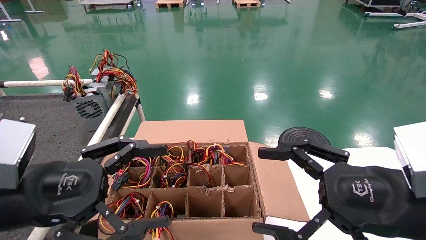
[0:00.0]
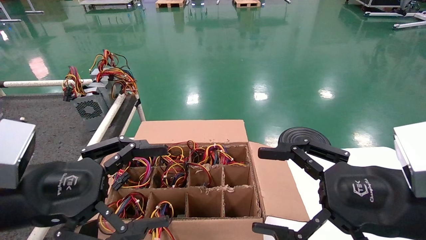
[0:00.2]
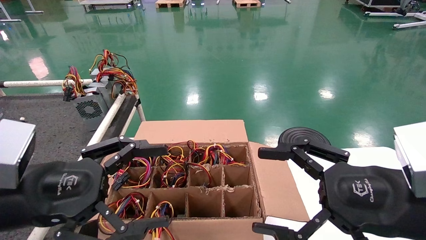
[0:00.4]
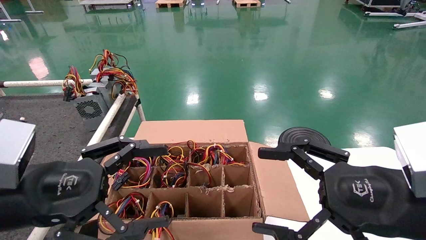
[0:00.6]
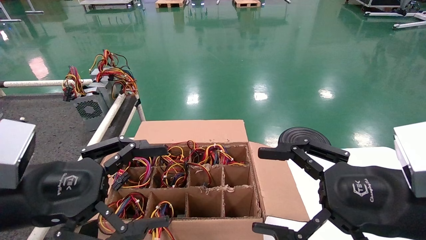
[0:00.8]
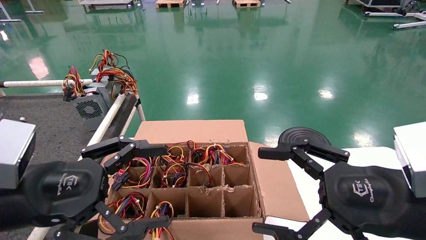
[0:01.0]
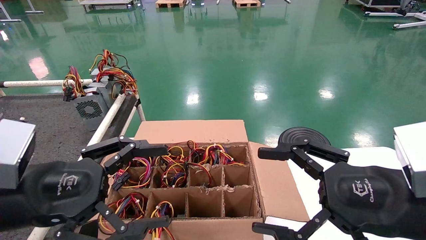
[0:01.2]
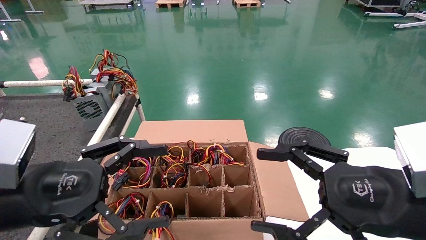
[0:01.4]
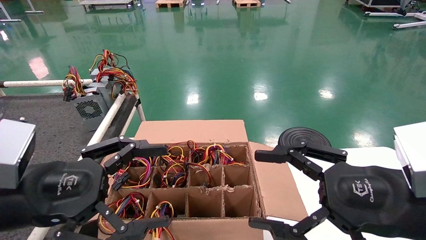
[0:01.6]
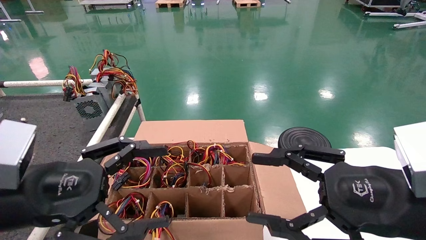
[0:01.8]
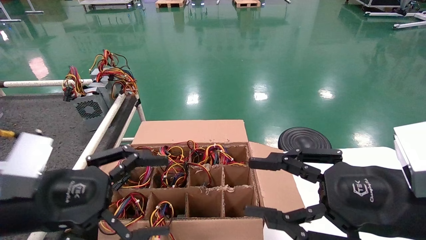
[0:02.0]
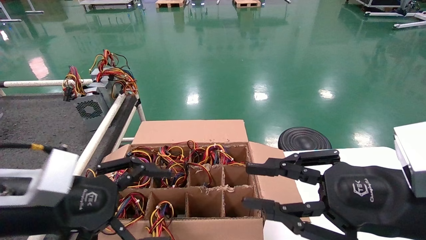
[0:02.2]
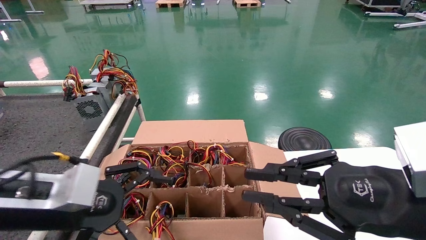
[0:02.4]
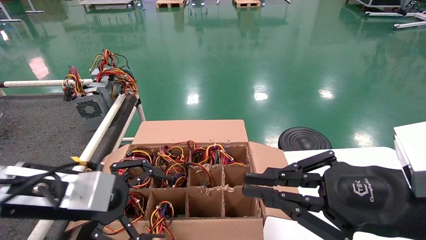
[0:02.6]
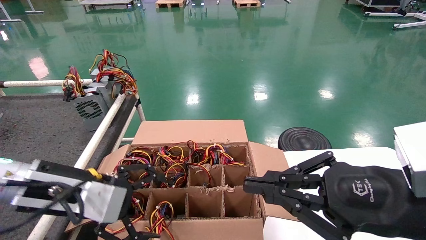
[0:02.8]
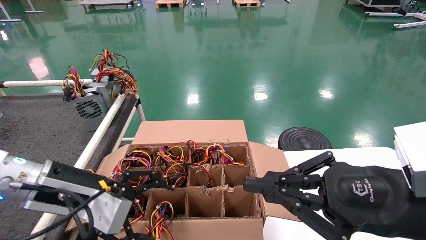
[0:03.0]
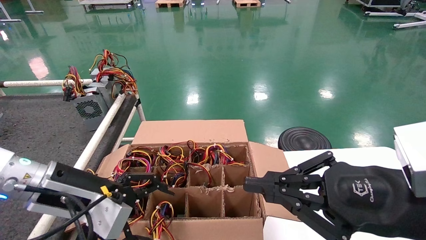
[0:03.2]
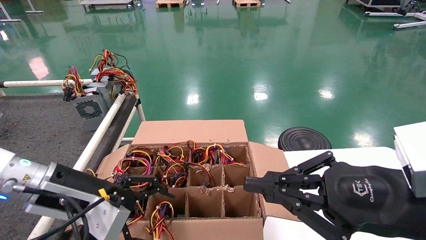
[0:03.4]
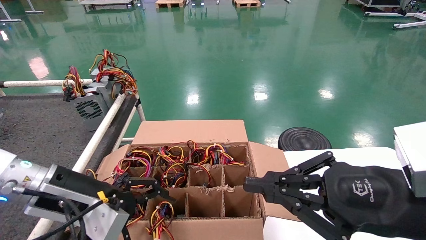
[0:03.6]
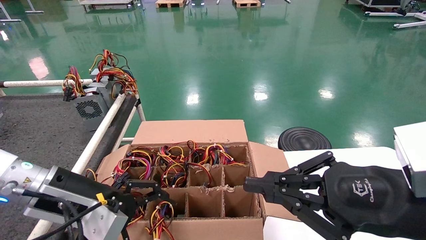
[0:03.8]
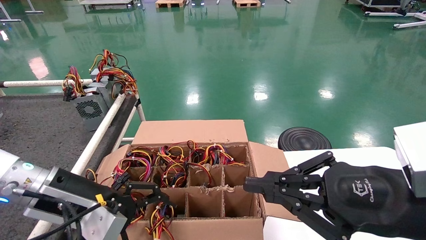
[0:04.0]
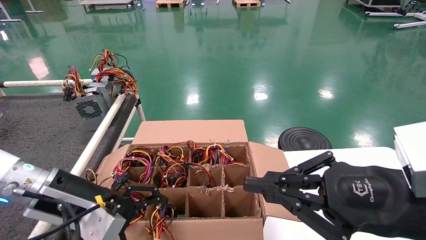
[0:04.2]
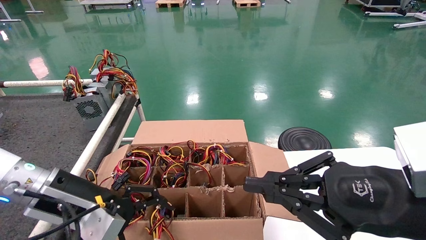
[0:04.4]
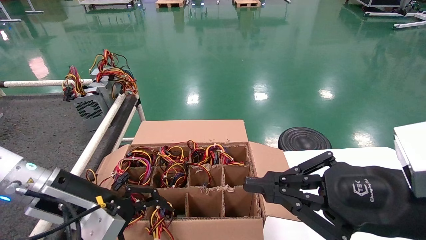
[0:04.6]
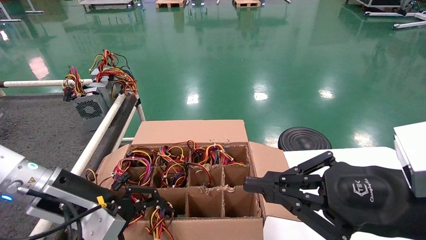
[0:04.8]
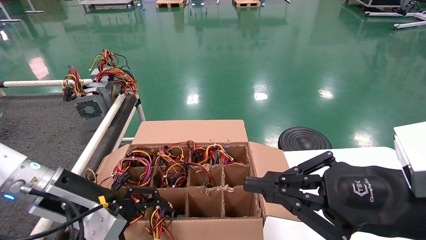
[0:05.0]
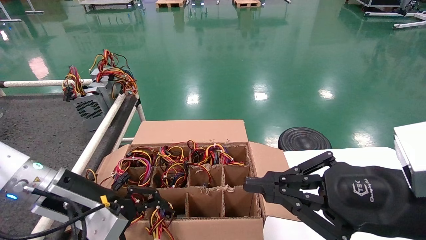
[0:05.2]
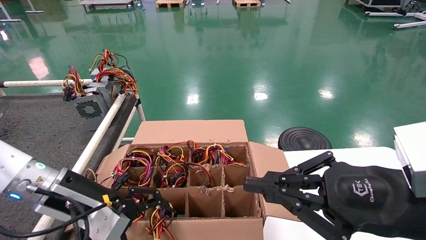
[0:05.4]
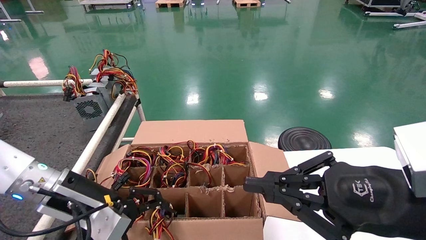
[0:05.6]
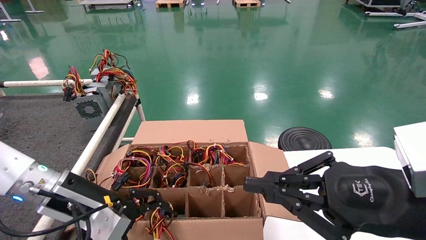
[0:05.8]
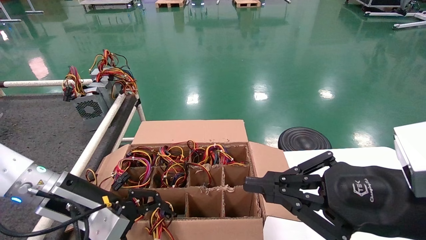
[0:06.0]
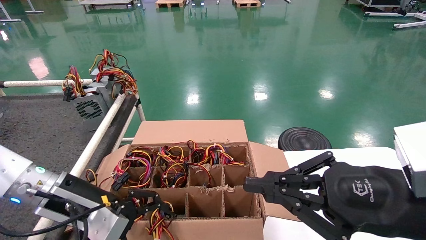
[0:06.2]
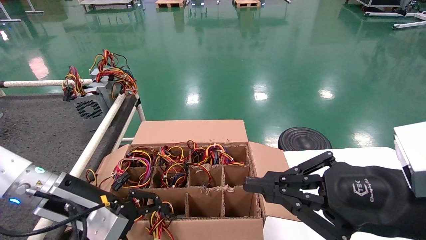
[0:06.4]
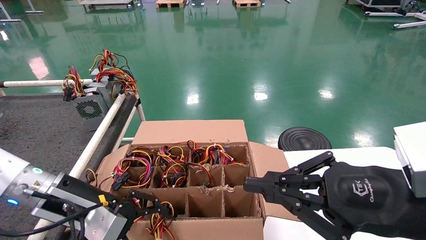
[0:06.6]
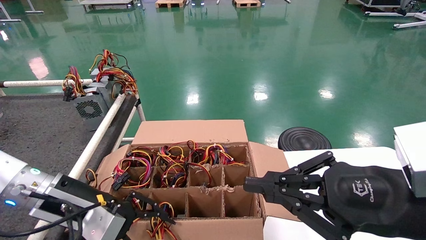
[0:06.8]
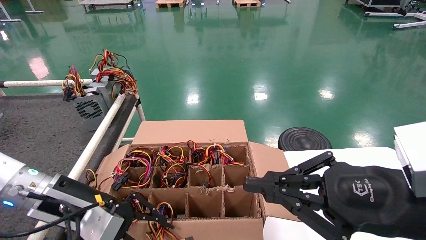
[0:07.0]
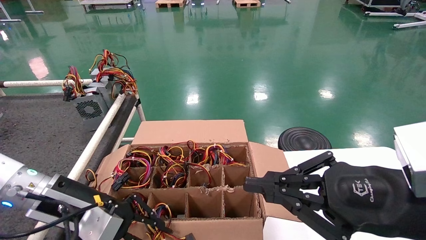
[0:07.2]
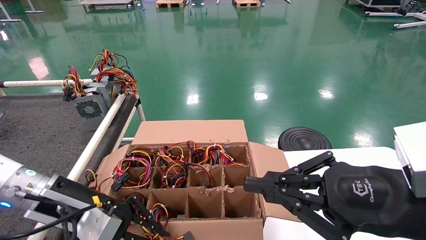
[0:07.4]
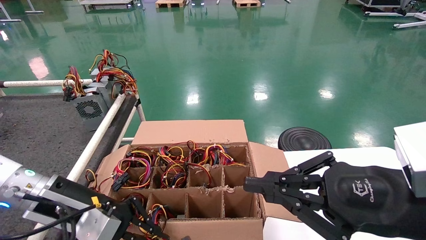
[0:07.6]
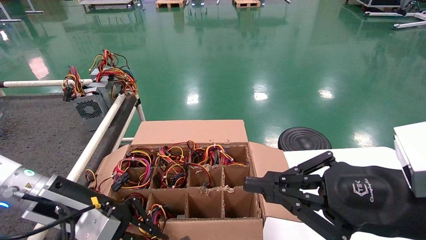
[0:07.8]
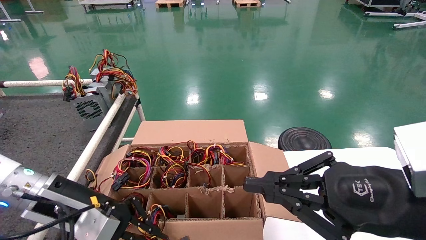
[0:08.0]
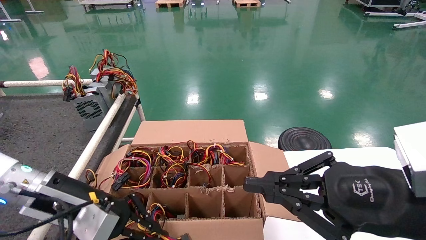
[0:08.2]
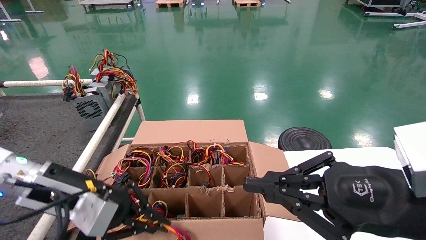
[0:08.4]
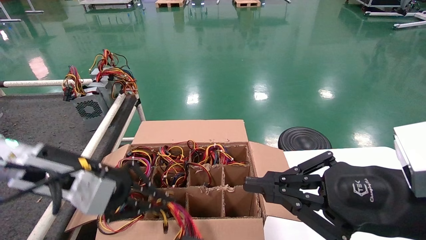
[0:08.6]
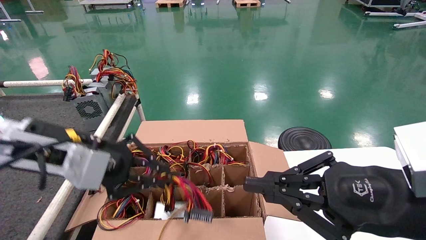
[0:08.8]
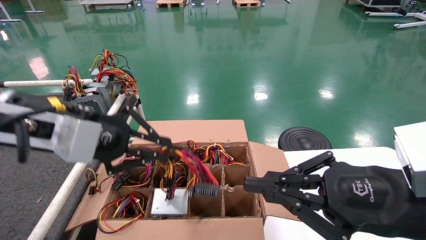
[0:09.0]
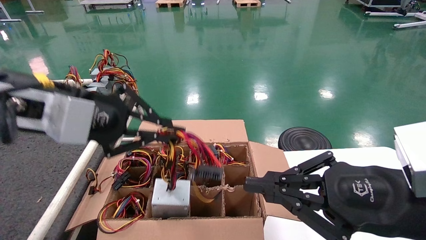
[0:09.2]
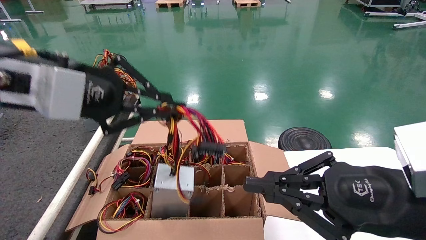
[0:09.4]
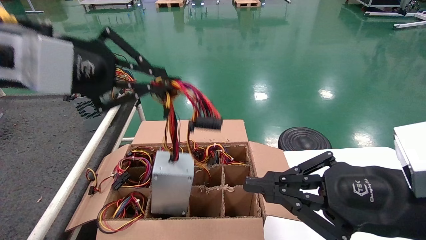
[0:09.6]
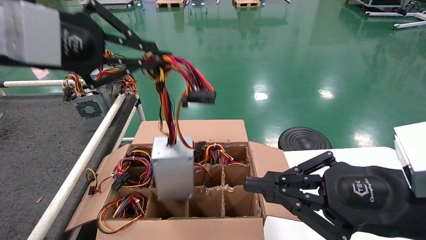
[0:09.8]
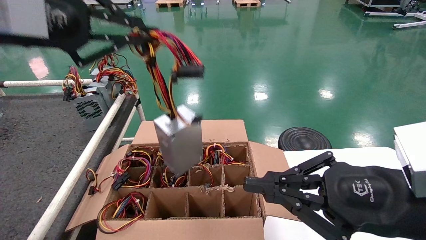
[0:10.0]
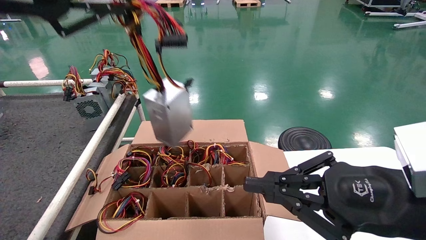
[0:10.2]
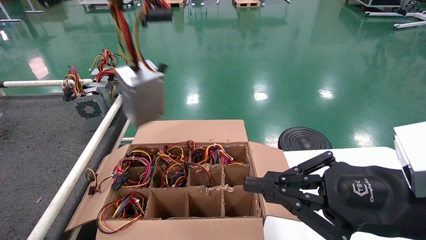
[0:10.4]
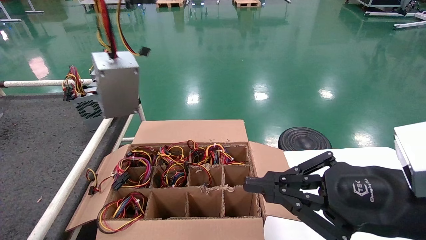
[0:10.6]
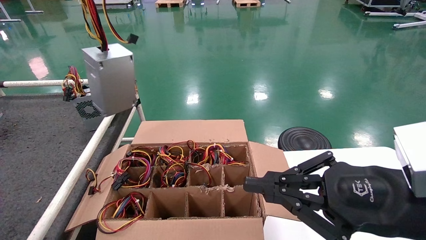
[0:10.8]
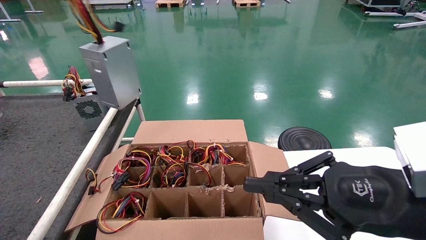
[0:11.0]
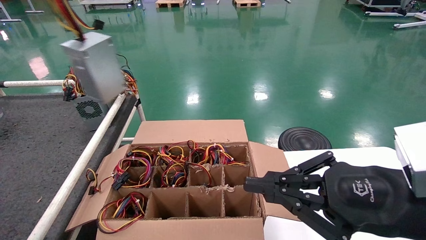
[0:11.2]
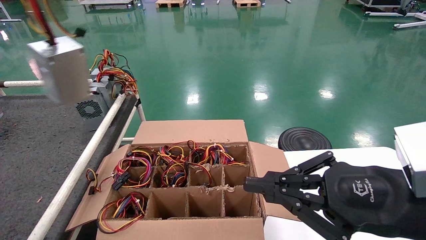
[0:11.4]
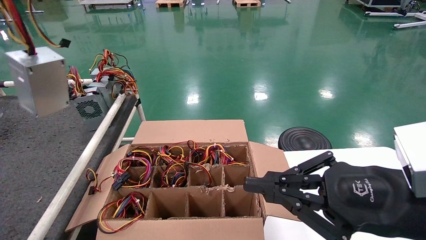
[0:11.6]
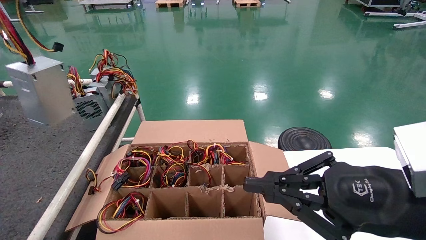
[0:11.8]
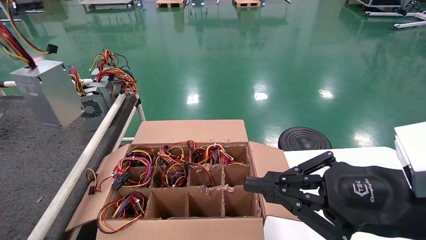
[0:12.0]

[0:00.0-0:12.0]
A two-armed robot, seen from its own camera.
Step, 0:02.4 to 0:08.2: Grab and lift the power supply from the large box.
0:00.0 to 0:01.6: Both grippers stay put.
0:01.6 to 0:03.0: The right gripper closes up. Meanwhile the left gripper travels forward by some 5 cm.
0:03.0 to 0:06.0: There are only small adjustments of the grippers.
0:06.0 to 0:07.6: The left gripper closes its fingers.
0:07.6 to 0:09.0: The left gripper travels upward by roughly 15 cm.
0:09.0 to 0:10.4: The left gripper moves upward, about 20 cm.
0:10.4 to 0:12.0: The left gripper travels to the left by roughly 15 cm.

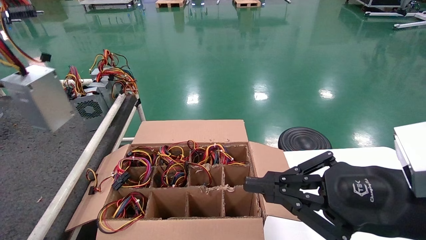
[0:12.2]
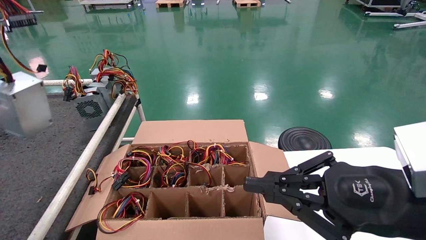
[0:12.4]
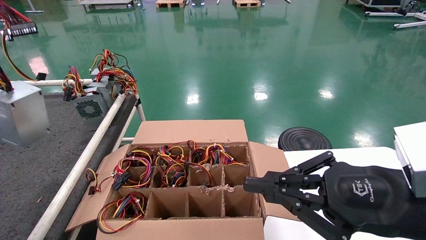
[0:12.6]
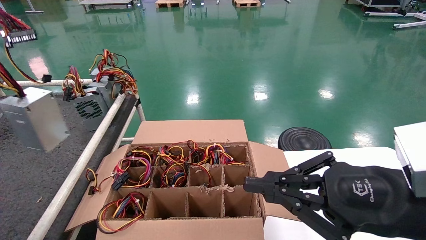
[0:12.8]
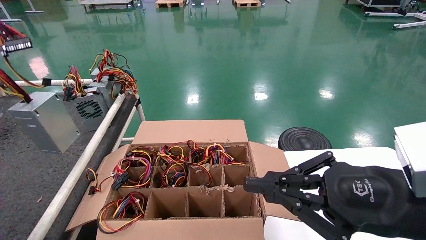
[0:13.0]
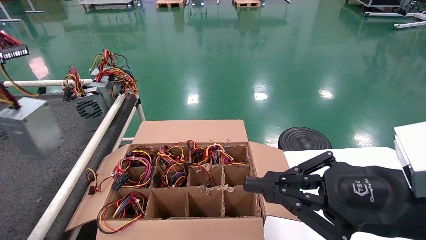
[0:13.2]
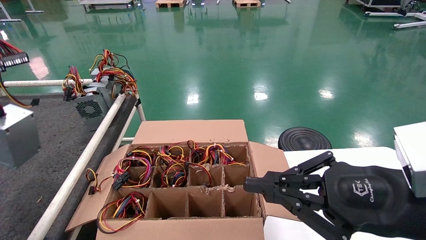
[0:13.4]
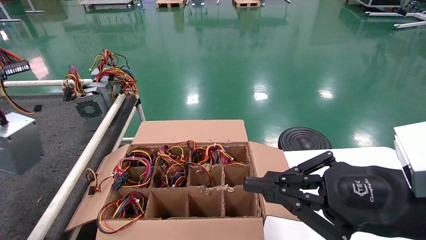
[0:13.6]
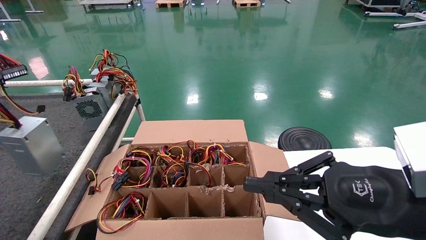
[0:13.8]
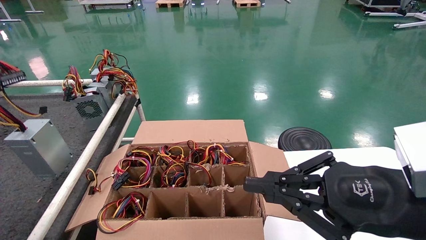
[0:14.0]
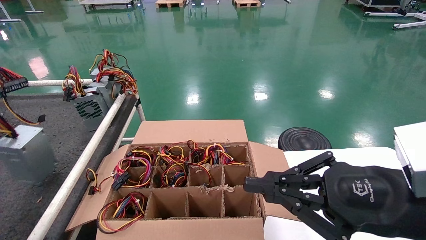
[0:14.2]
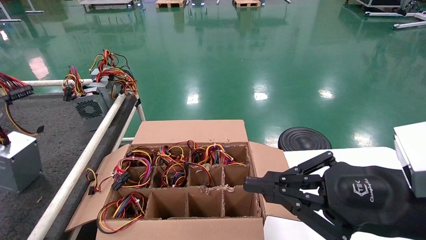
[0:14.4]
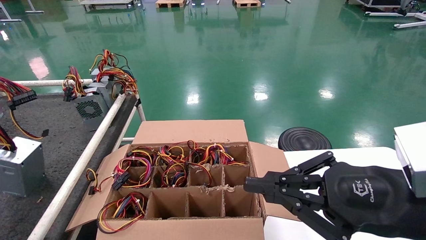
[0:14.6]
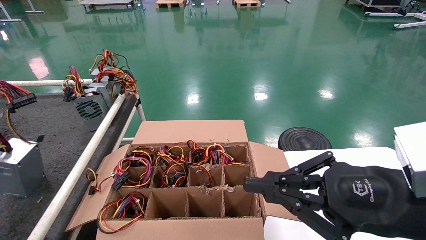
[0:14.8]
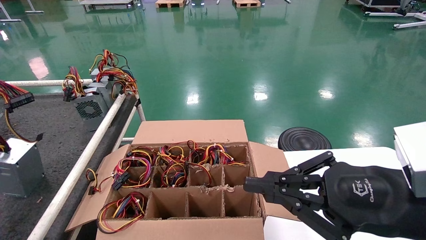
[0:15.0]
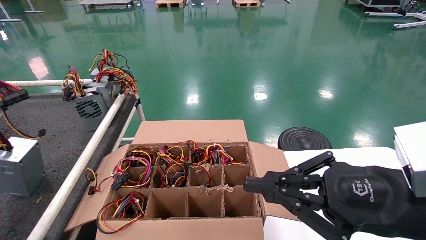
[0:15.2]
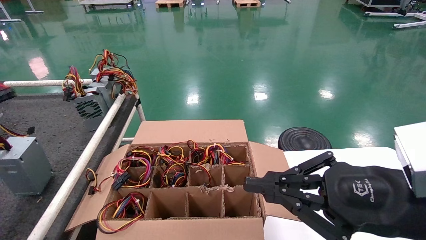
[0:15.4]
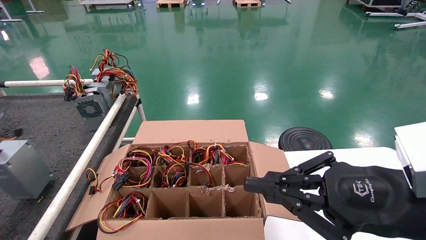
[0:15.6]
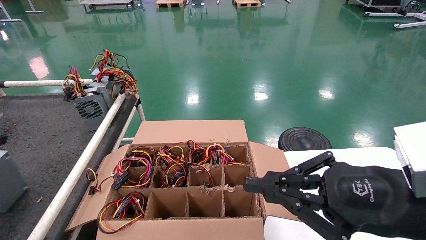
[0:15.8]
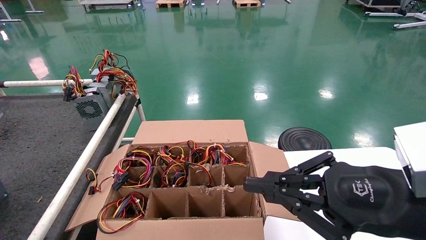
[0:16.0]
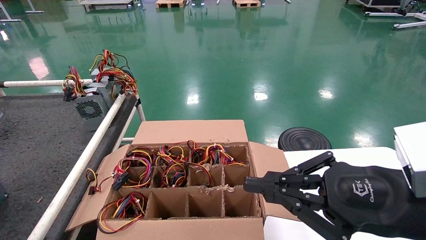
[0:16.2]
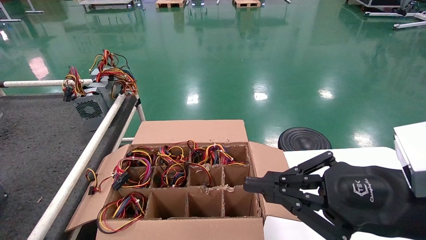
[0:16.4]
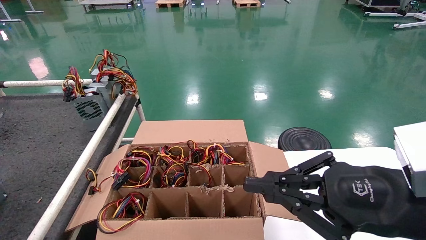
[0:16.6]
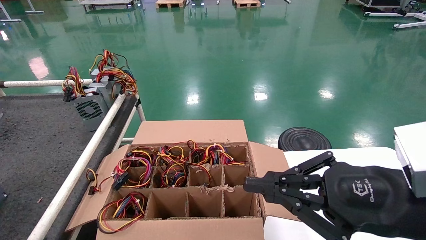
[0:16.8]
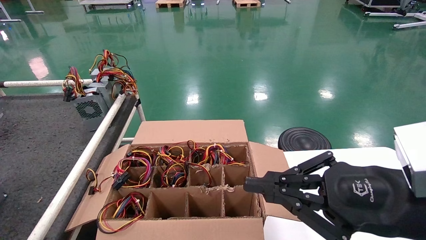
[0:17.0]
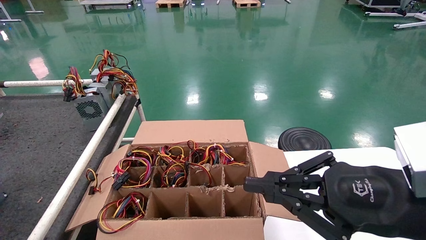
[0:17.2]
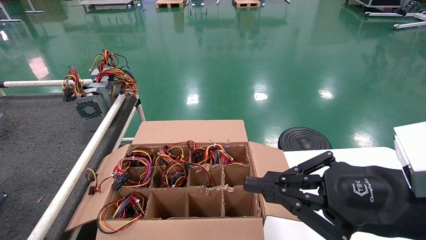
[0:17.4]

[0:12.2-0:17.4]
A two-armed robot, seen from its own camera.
0:12.2 to 0:14.0: The left gripper goes some 10 cm downward and to the left.
0:14.0 to 0:15.6: The left gripper travels downward by roughly 5 cm.
0:15.6 to 0:17.4: The left gripper shifts about 10 cm backward and downward.
